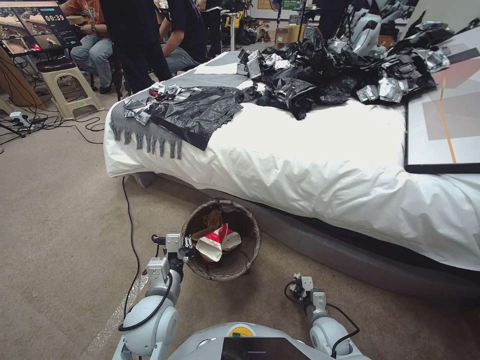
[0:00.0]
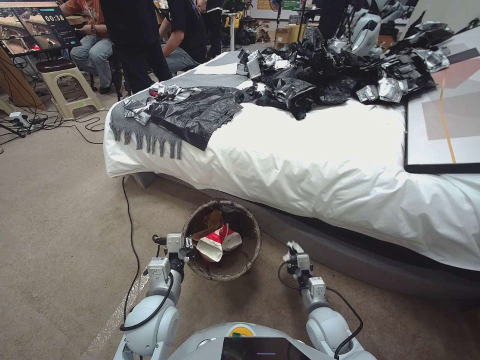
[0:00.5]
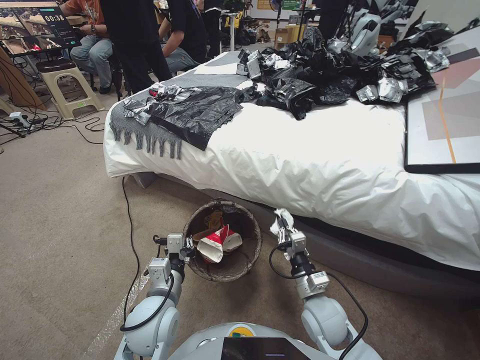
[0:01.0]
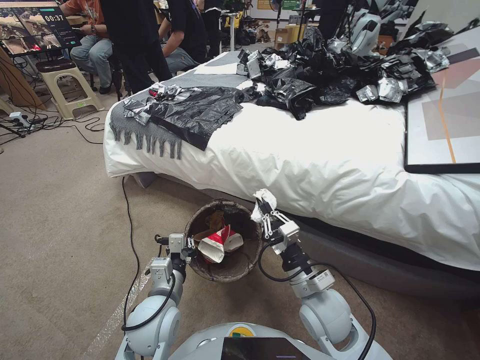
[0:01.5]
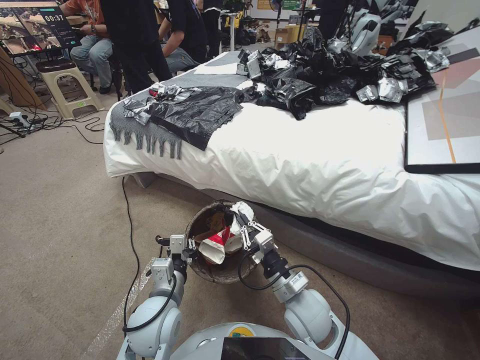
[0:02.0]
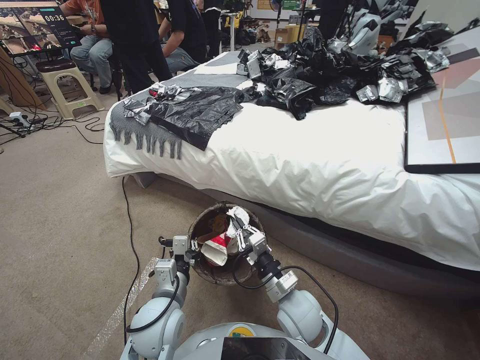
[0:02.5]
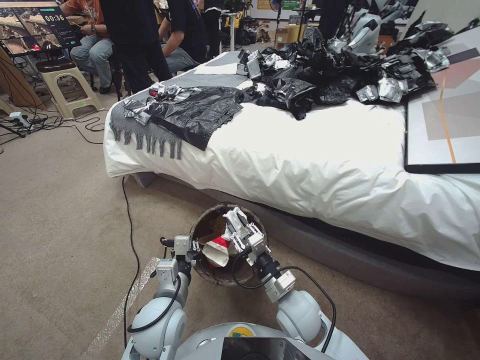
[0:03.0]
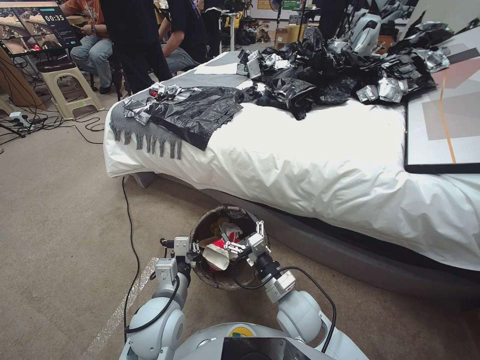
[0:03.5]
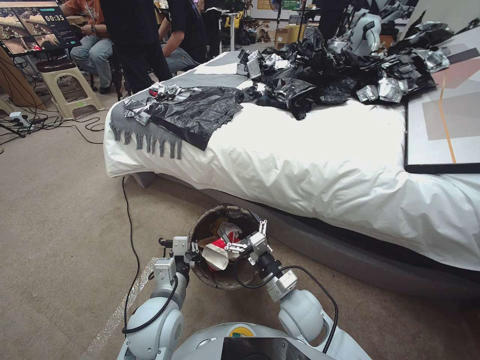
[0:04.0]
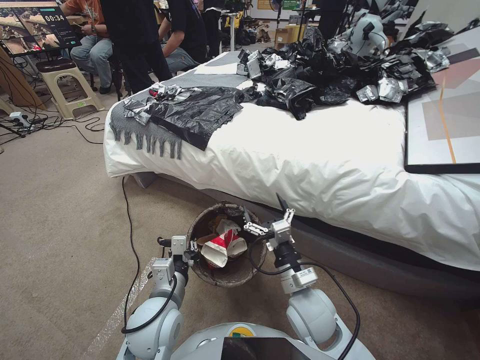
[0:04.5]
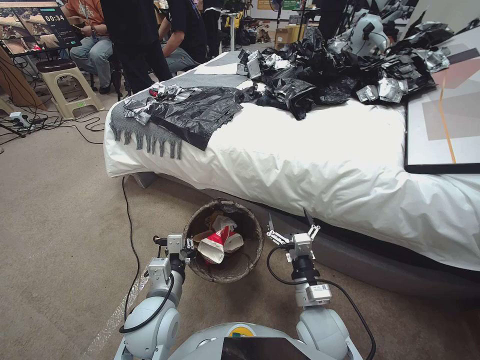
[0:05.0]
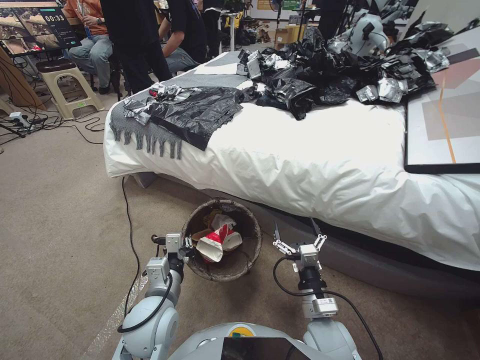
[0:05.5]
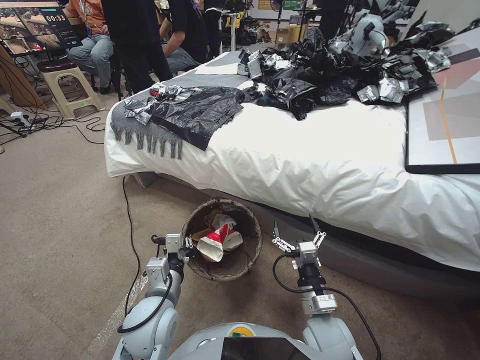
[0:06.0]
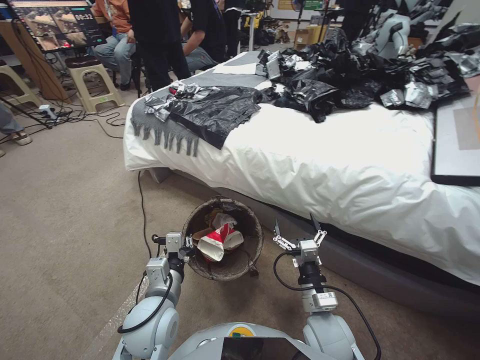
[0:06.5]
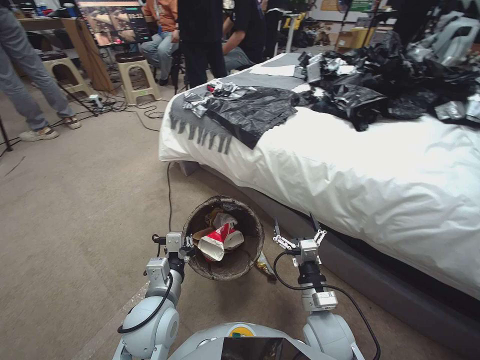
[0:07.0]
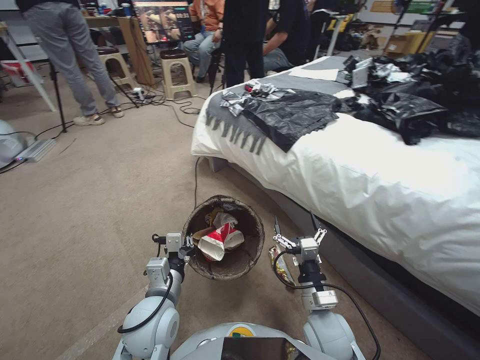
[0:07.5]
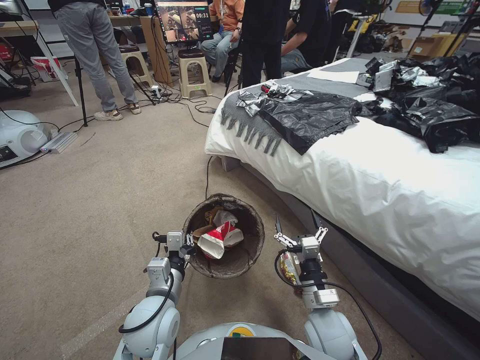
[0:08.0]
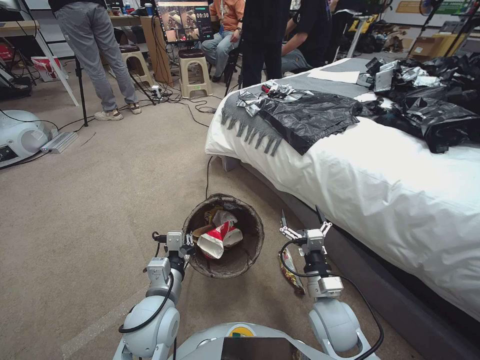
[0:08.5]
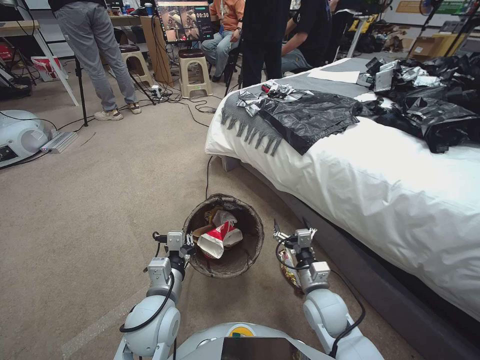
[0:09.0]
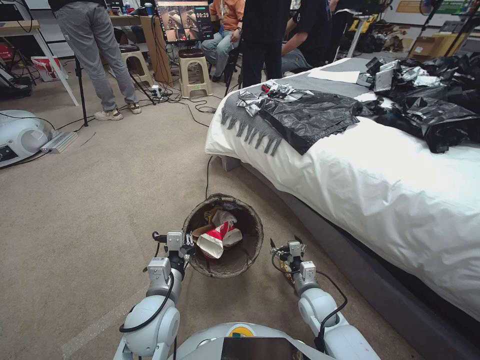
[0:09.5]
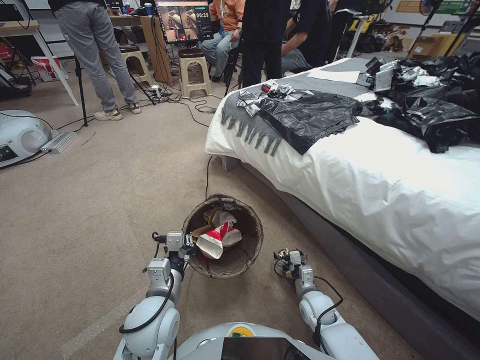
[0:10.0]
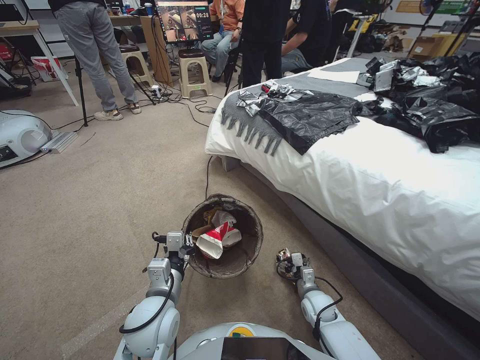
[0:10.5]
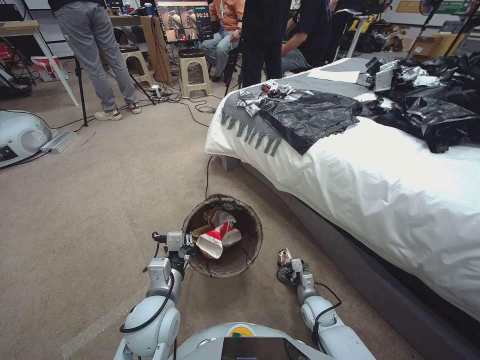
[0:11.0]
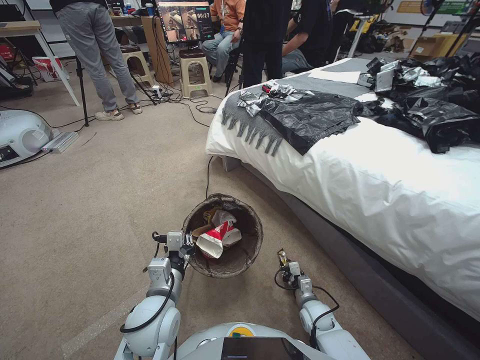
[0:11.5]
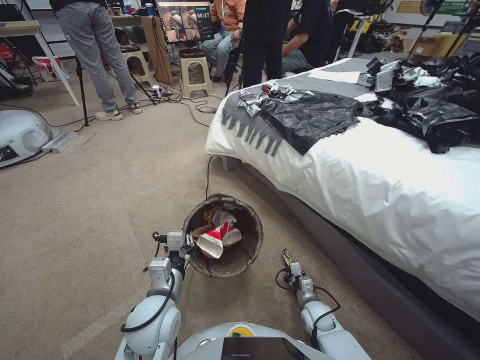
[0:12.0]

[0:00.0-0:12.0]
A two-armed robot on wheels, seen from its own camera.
Task of the whole recording: Pick up the trash bin, then pick up the garbage from the floor and place it into the trash bin.
0:00.0 to 0:02.0: The right gripper moves upward and to the left, about 25 cm.
0:02.0 to 0:04.0: The right gripper opens up.
0:04.0 to 0:06.0: The right gripper goes some 5 cm to the right.
0:08.0 to 0:10.0: The right gripper is displaced downward and forward by about 15 cm.
0:10.0 to 0:12.0: The right gripper heads downward, covering about 5 cm, and closes up.

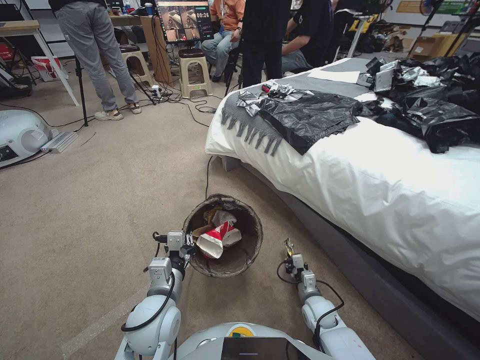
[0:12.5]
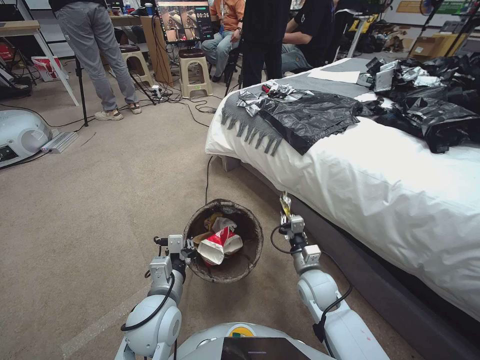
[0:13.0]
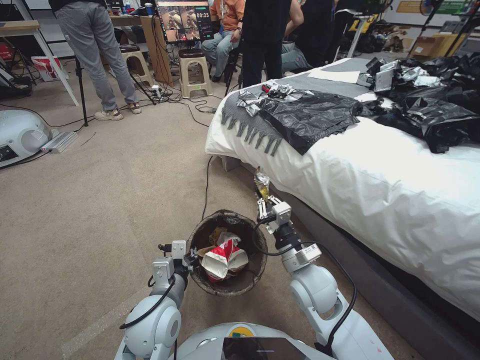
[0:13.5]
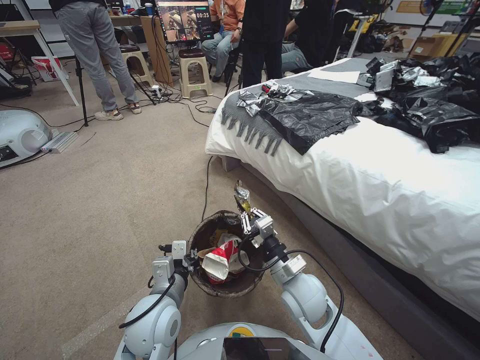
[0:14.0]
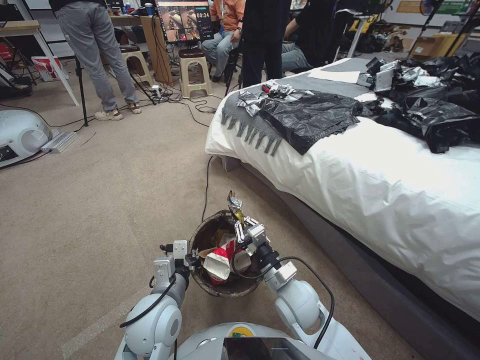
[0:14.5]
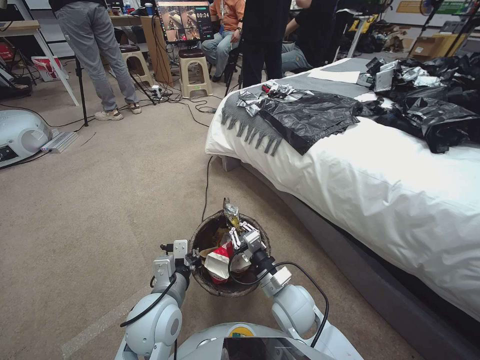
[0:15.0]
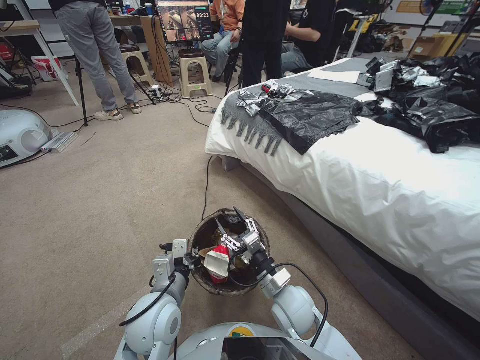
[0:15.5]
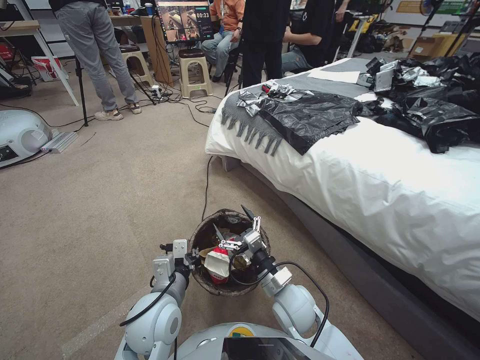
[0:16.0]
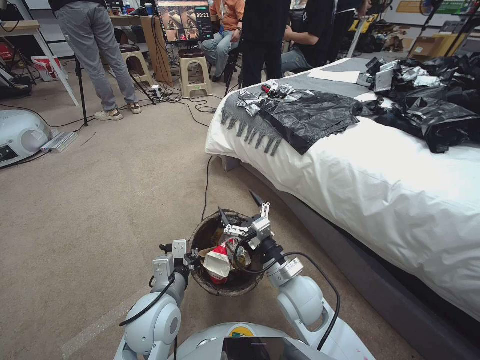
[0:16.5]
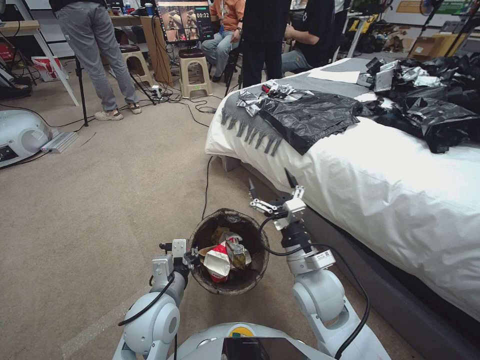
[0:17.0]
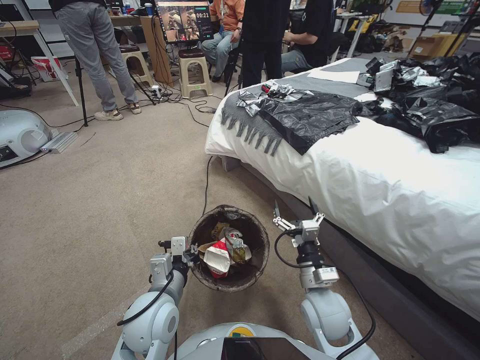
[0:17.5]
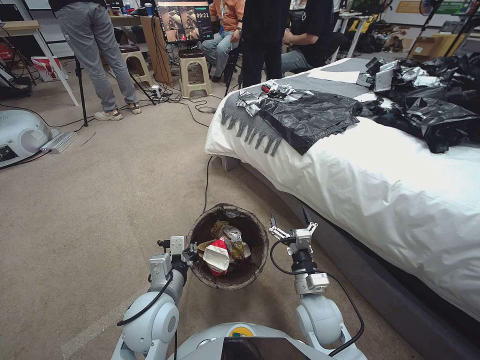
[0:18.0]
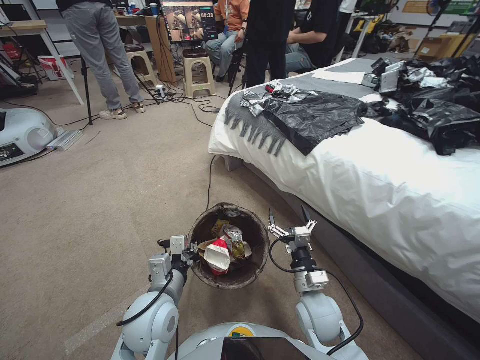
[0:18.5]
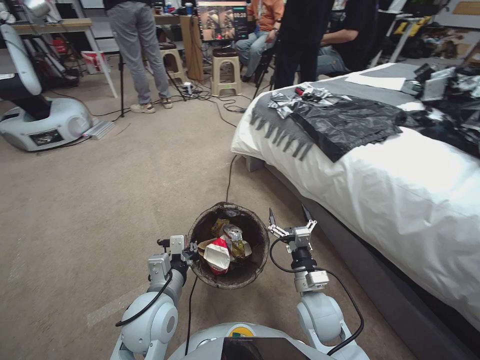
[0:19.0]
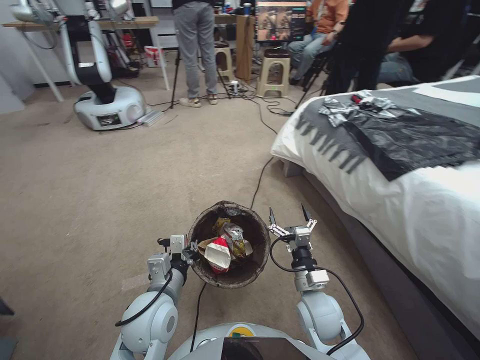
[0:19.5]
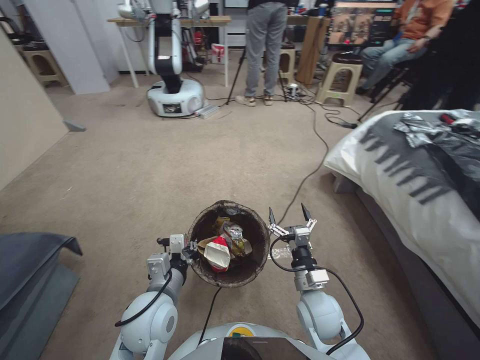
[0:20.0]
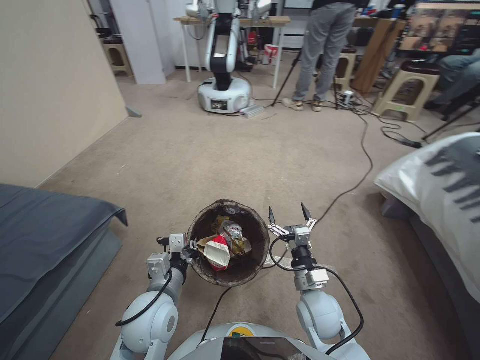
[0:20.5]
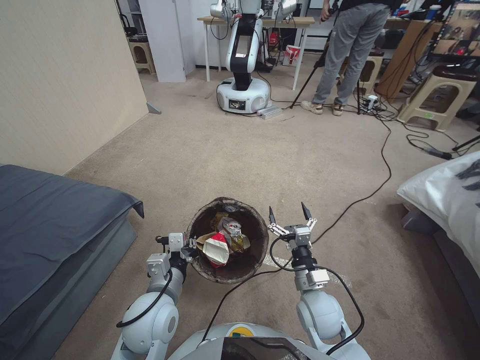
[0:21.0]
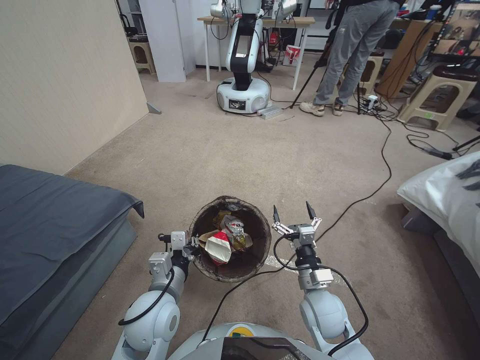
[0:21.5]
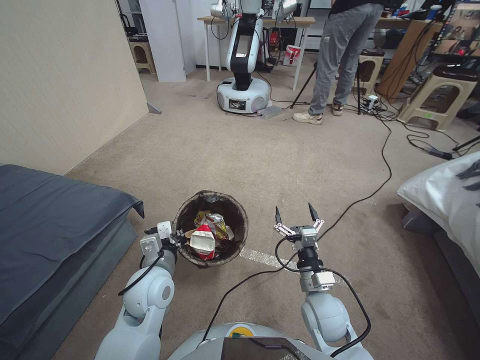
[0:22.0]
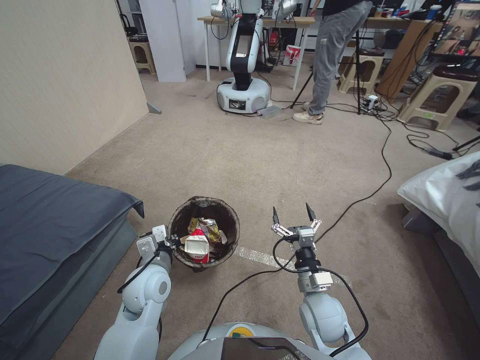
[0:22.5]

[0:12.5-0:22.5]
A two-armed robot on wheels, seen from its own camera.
Task of the whole recording: Pick up the trash bin, then pick up the garbage from the floor and place it into the trash bin.
0:12.5 to 0:14.5: The right gripper is displaced upward and to the left by approximately 25 cm.
0:14.5 to 0:16.5: The right gripper opens up.
0:16.5 to 0:18.5: The right gripper shifts some 5 cm to the right.
0:20.5 to 0:22.5: The left gripper shifts some 5 cm forward.

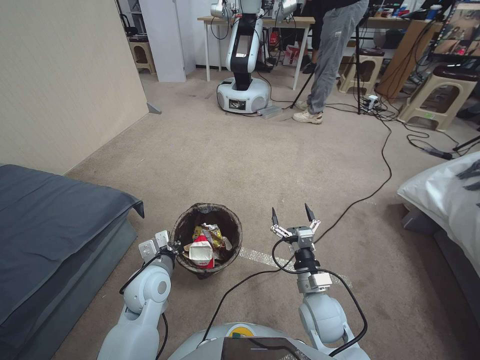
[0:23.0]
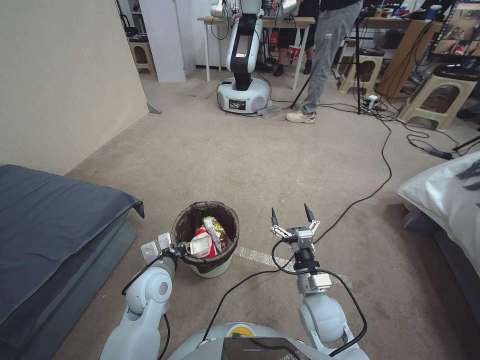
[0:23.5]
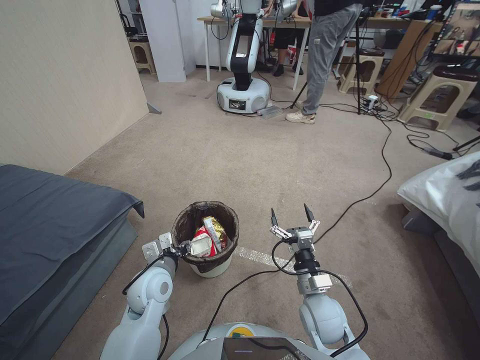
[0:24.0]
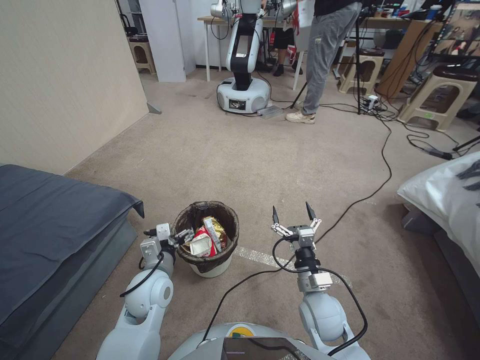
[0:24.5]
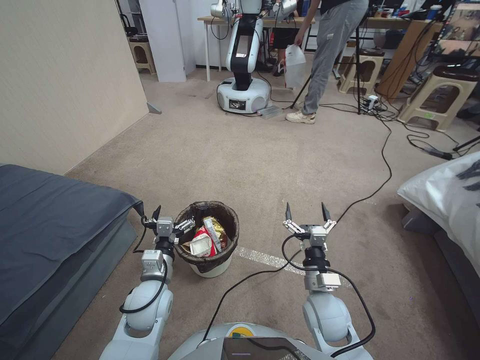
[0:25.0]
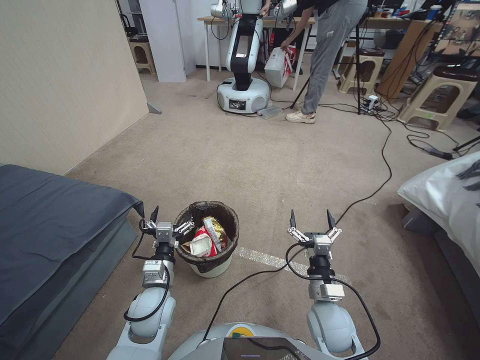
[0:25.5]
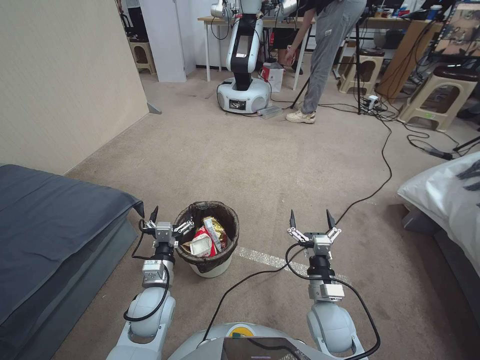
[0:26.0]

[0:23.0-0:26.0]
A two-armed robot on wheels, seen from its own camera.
Task of the whole recording: Pick up the trash bin, then pick up the garbage from the floor and place it into the trash bin.
0:23.0 to 0:24.5: The left gripper opens up.
